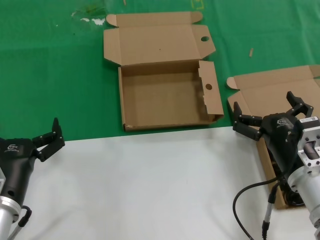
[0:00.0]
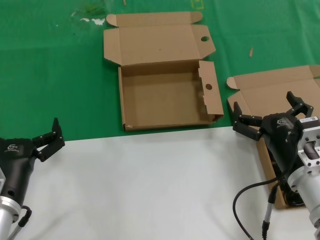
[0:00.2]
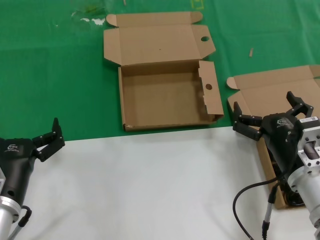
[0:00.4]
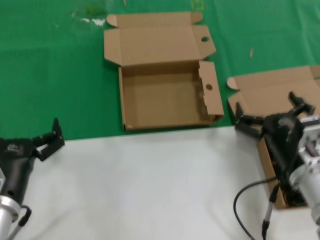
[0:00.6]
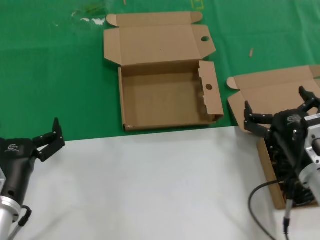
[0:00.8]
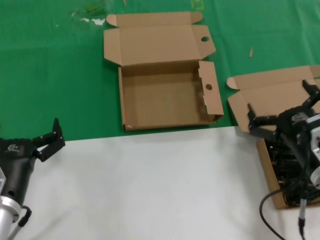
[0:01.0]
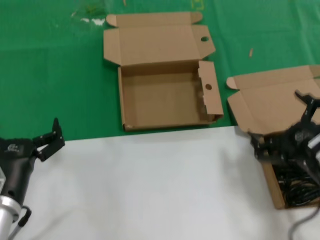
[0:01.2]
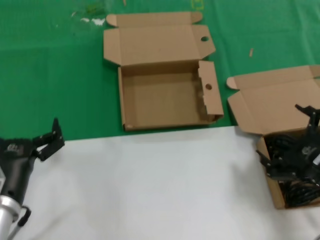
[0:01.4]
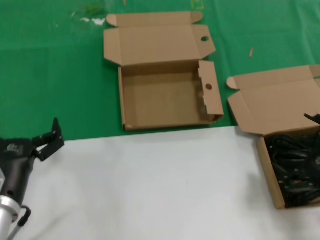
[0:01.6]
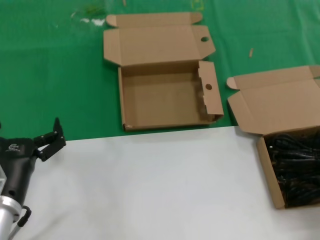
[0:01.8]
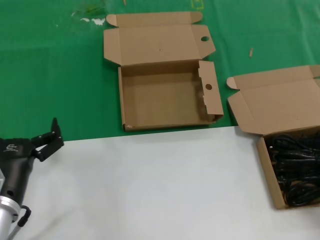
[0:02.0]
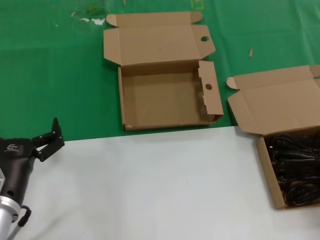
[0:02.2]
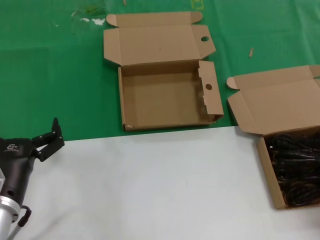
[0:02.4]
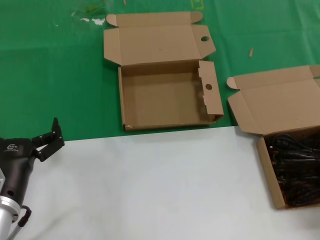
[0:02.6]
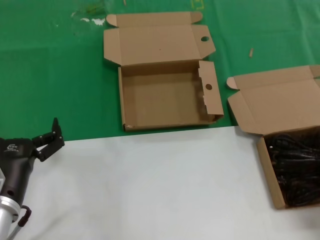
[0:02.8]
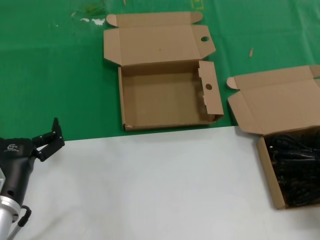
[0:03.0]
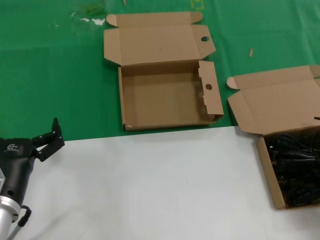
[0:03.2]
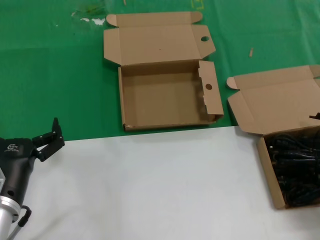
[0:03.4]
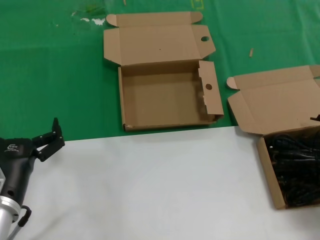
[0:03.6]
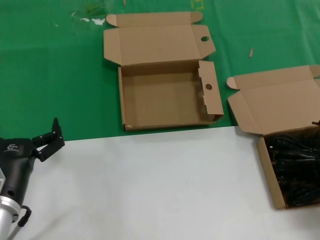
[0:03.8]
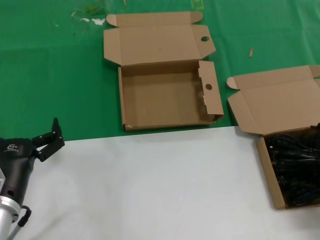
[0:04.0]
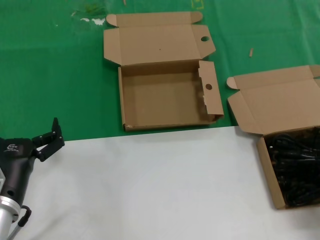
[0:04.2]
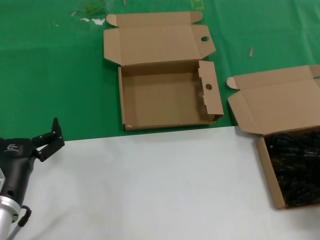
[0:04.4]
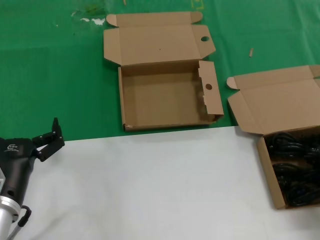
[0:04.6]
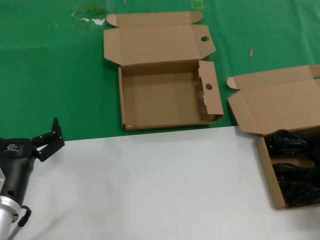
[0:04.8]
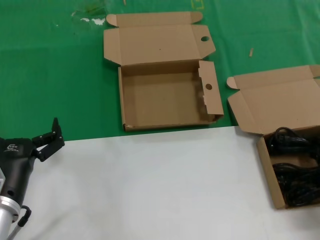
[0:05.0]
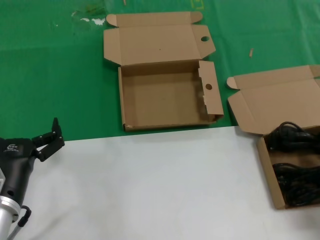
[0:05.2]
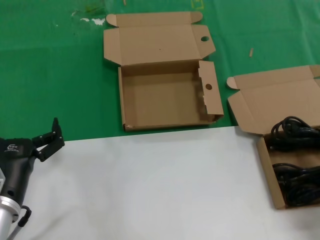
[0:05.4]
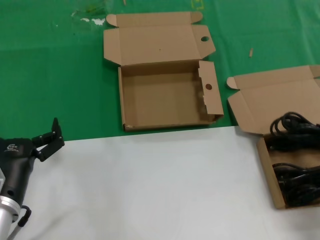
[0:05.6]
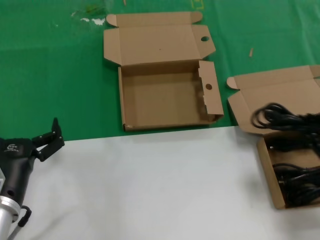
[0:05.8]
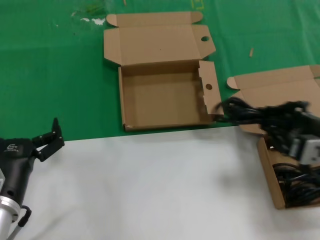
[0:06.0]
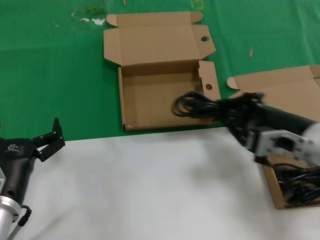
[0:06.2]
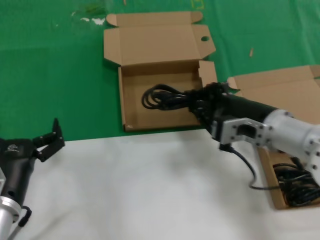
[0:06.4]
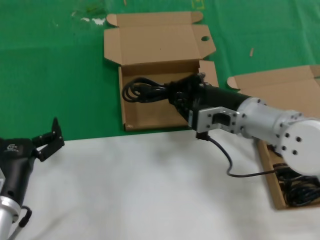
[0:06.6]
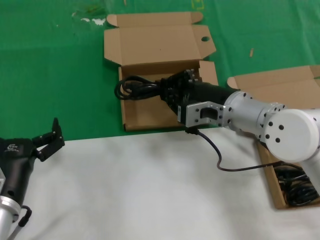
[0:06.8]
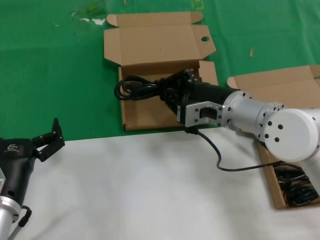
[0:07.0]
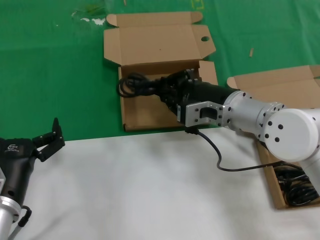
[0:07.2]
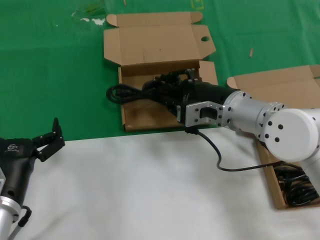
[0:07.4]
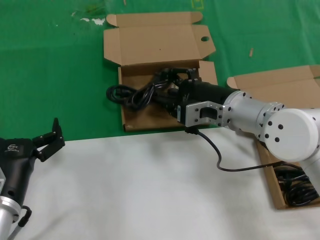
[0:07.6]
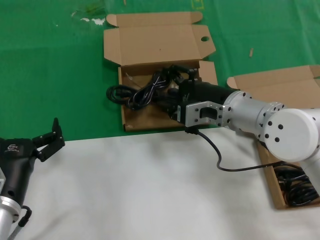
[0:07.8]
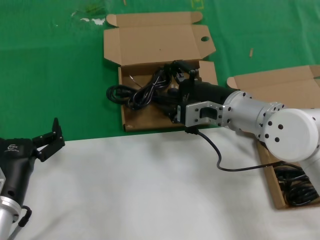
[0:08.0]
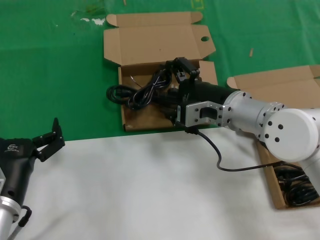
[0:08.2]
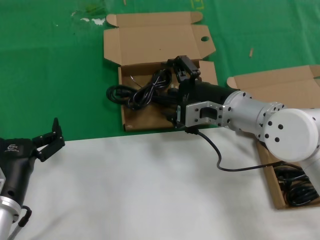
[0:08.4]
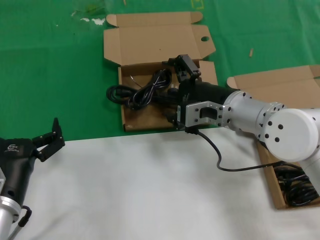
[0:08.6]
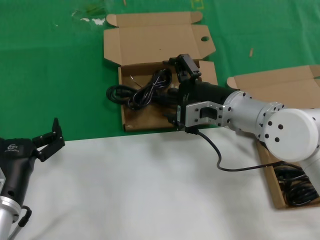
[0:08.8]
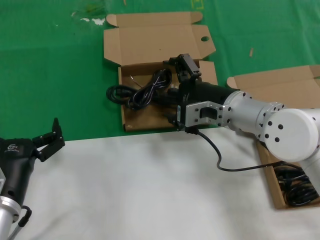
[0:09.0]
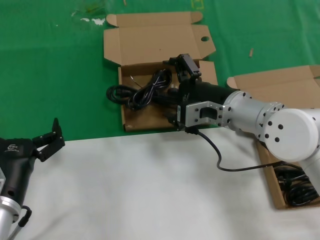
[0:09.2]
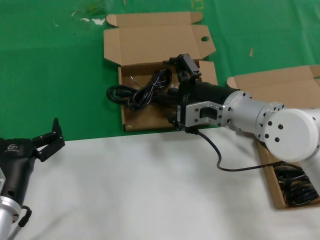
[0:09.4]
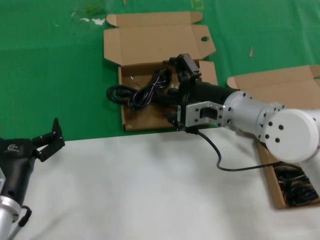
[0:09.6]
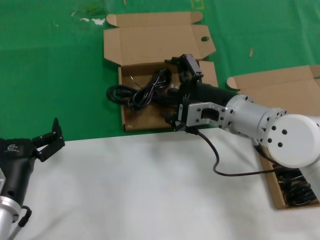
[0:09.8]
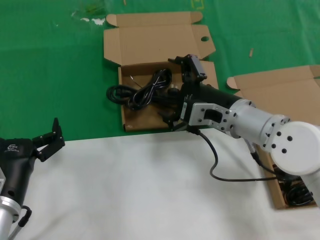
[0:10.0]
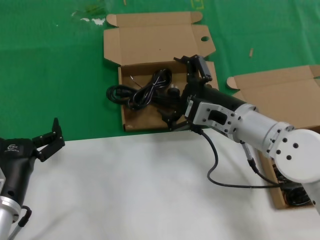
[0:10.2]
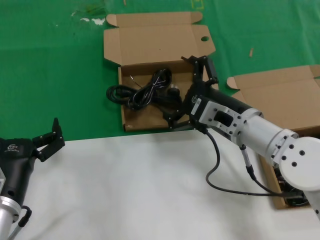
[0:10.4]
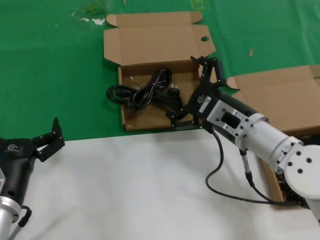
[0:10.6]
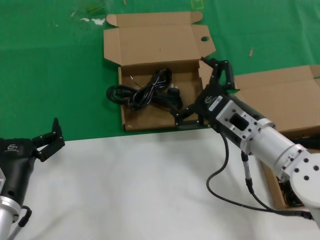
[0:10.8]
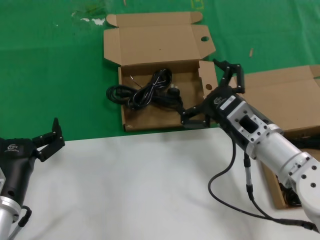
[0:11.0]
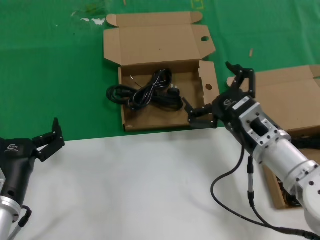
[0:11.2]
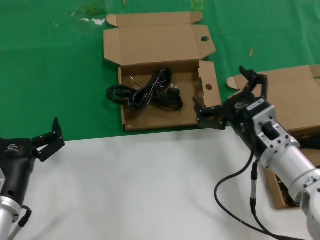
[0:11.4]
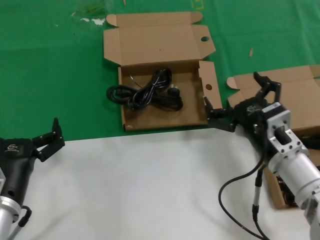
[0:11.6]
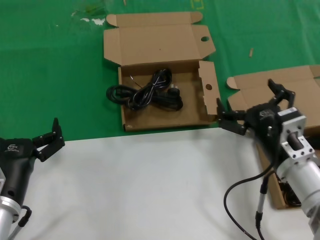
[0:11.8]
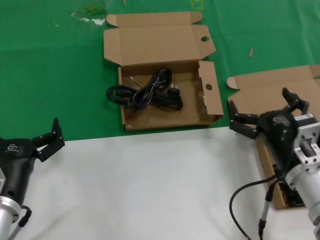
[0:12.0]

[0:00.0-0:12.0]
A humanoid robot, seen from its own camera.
Task of the whole recording: take the parts from the box containing them and put them into an empty box.
Step, 0:00.0 to 0:05.0: Grasp the data cable.
Step, 0:05.2 to 0:09.4: Place the data cable in the another box.
0:00.0 to 0:01.6: The right hand heads to the right and backward, covering some 10 cm.
0:01.6 to 0:03.0: The right hand is displaced to the right and forward by some 10 cm.
0:04.4 to 0:06.0: The right hand travels to the left and upward by about 10 cm.
0:06.0 to 0:07.6: The right hand shifts roughly 20 cm to the left and forward.
0:07.6 to 0:09.0: Both hands stay about where they are.
0:10.4 to 0:12.0: The right hand travels backward, downward and to the right by about 10 cm.

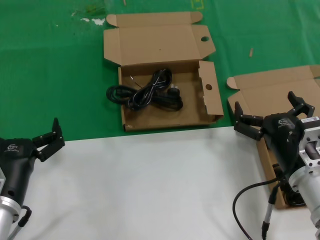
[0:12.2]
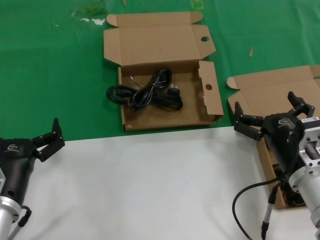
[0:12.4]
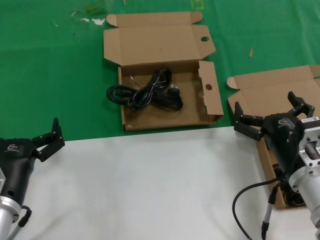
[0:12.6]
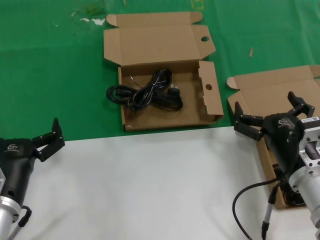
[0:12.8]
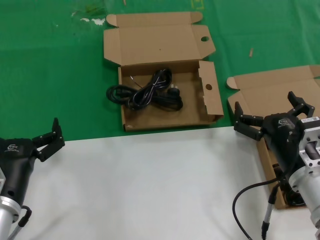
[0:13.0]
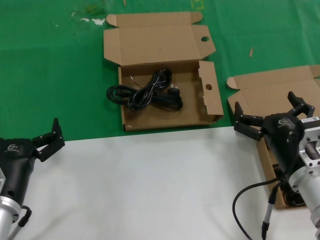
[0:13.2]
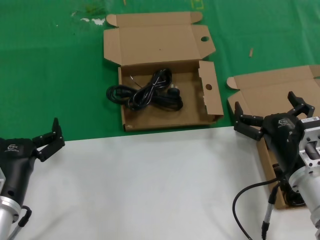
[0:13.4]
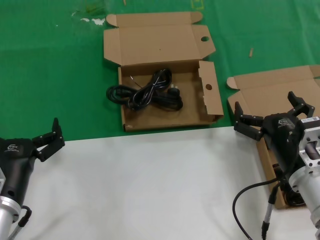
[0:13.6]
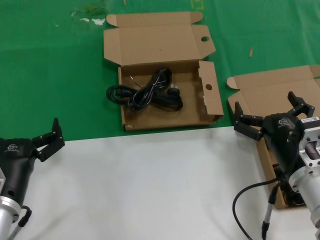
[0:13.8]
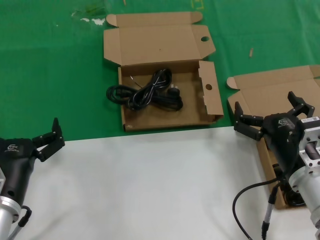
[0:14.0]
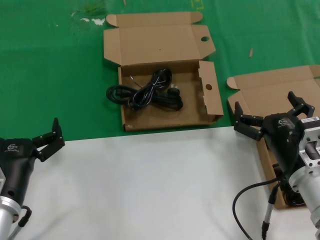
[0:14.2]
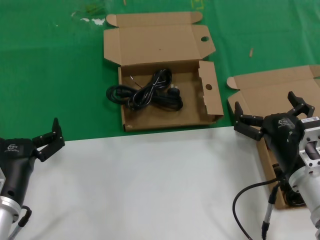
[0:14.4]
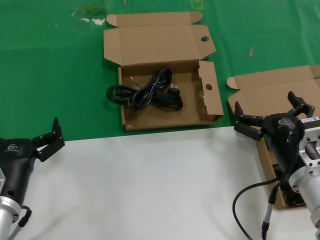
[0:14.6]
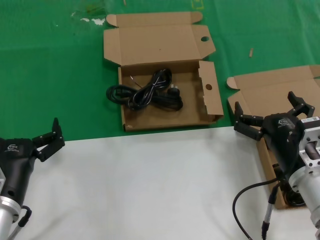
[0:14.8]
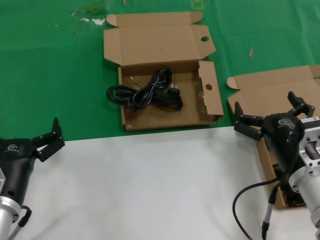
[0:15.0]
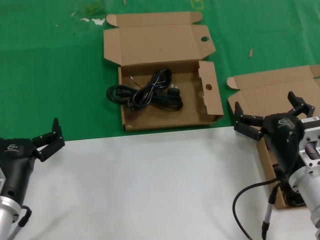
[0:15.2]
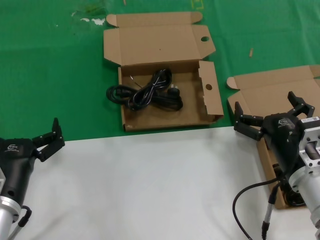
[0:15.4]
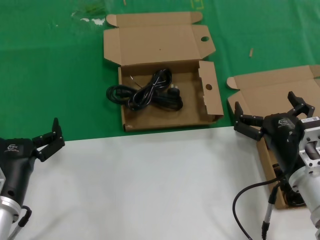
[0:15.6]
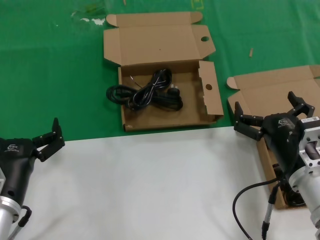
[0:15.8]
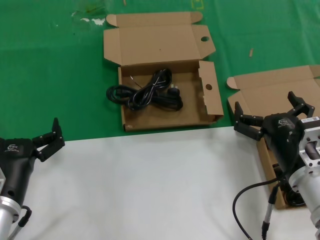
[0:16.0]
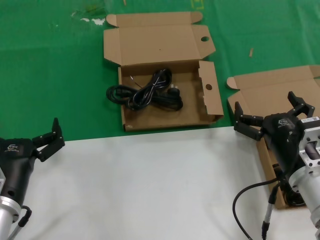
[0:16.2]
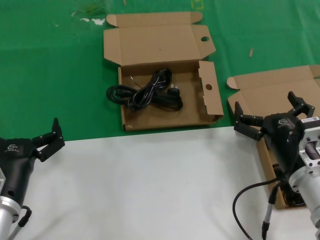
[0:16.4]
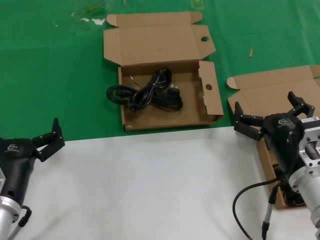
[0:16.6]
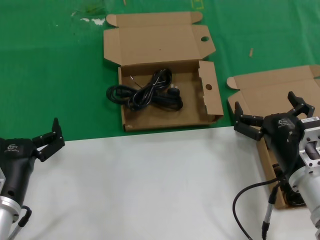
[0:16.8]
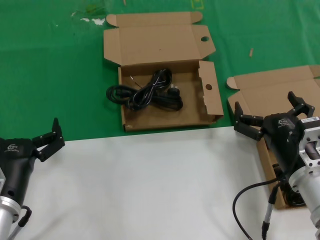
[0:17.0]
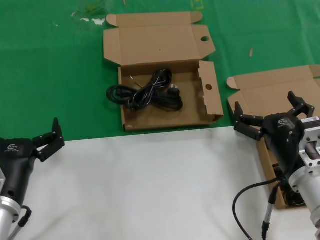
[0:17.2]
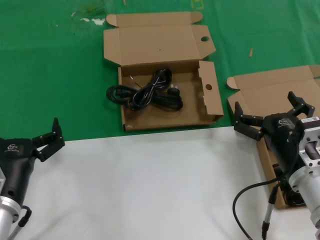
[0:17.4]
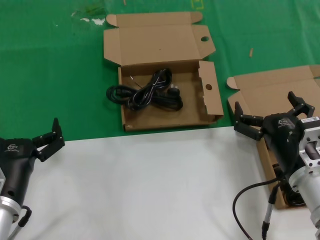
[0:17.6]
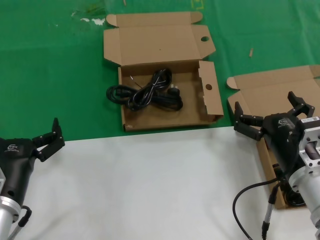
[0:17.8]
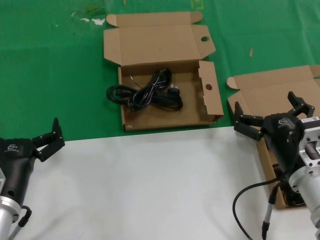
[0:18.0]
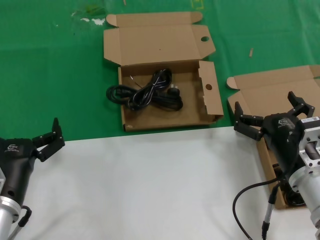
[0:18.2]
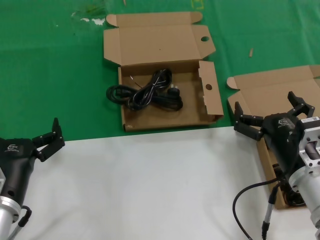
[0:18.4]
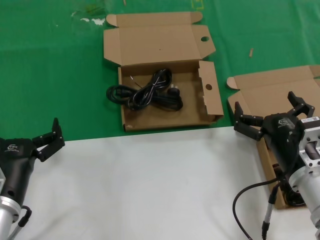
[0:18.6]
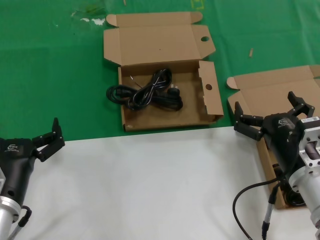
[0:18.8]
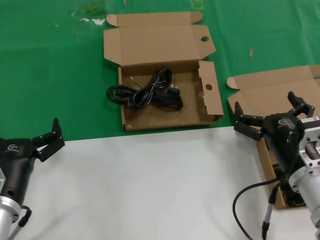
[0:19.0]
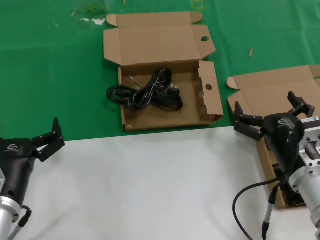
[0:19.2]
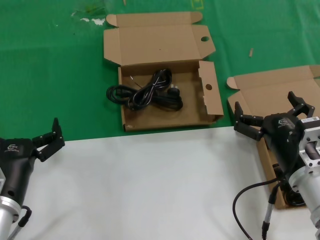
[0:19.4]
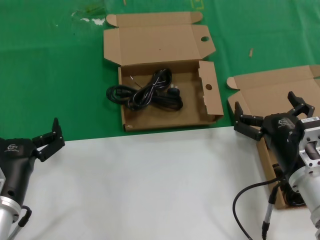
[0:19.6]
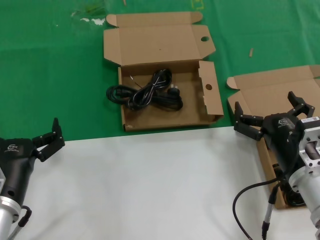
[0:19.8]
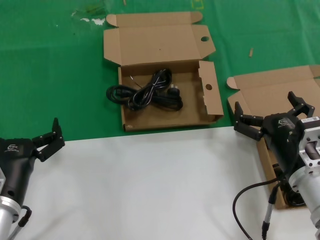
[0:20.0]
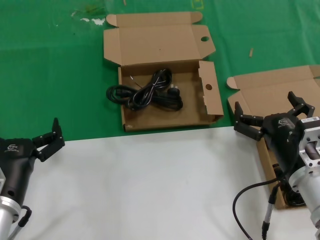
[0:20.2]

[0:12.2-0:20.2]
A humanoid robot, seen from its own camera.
Task of the whole recording: take the parts from the box containing them and put them into an empty box.
0:12.2 to 0:20.2: The two hands keep their place.

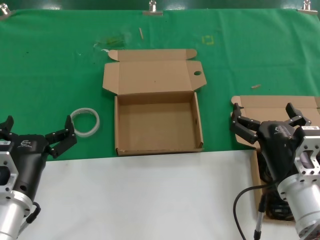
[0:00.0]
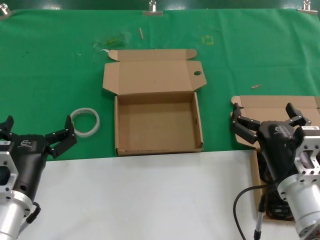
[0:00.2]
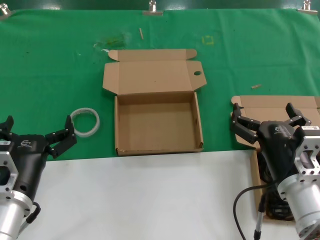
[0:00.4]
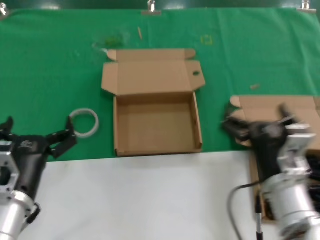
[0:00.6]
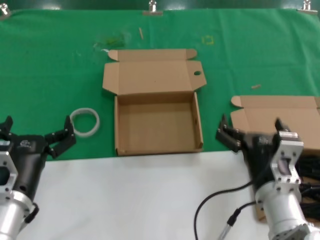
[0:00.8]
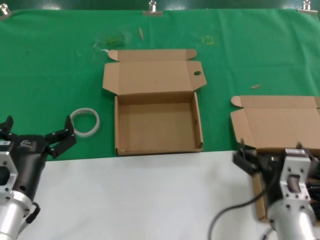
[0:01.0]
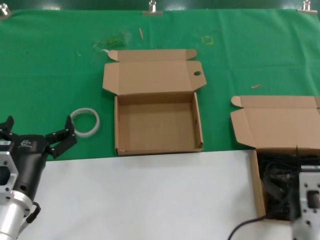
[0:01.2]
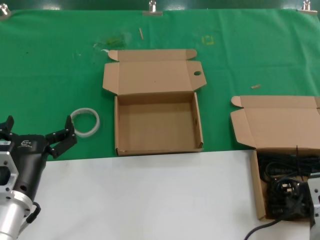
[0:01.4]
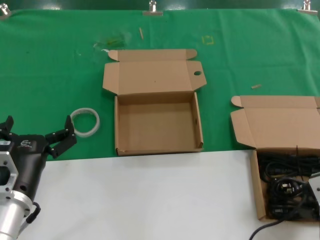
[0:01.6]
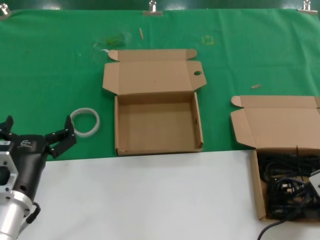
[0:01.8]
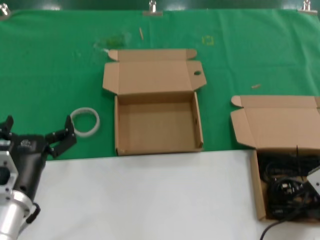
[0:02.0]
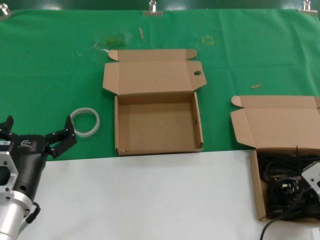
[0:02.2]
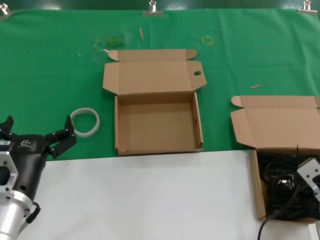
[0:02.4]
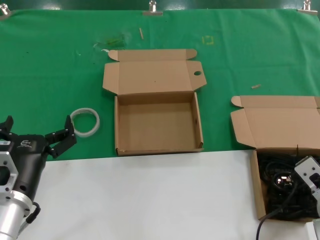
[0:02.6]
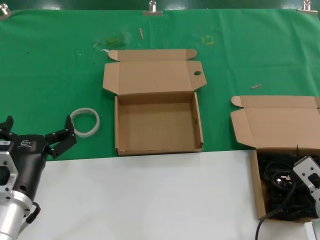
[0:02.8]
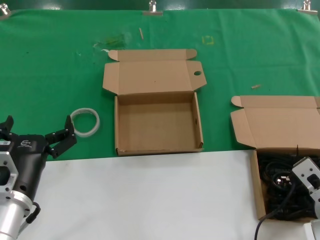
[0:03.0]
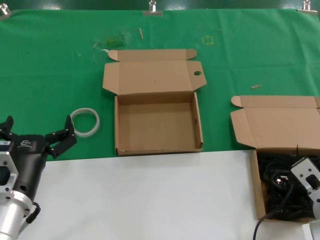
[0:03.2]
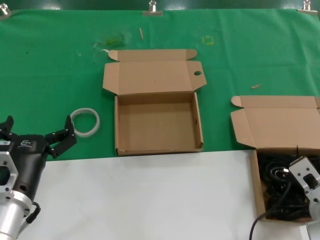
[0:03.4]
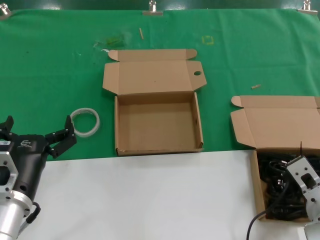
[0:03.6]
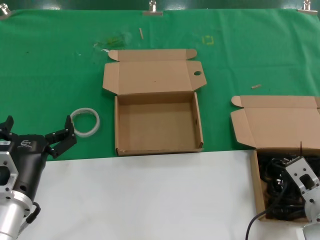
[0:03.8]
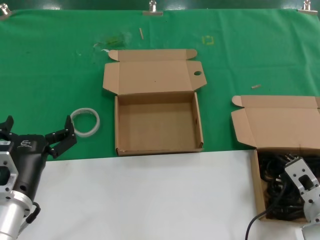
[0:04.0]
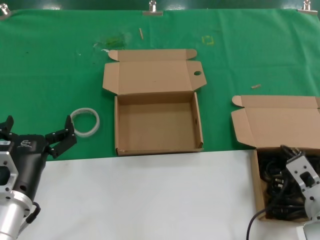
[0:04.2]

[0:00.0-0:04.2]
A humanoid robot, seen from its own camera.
Task of the whole recording: take the parts from the box containing them and put them into an empty box.
Step, 0:00.0 to 0:03.8: Grasp the data cable.
0:00.0 to 0:01.4: The right hand is displaced backward by about 5 cm.
0:01.4 to 0:02.8: The right hand is displaced forward and to the right by about 10 cm.
0:02.8 to 0:04.2: The hands move only a little.
